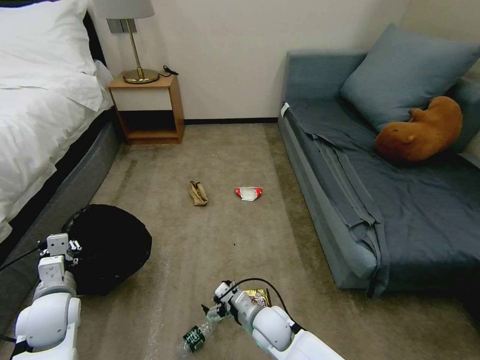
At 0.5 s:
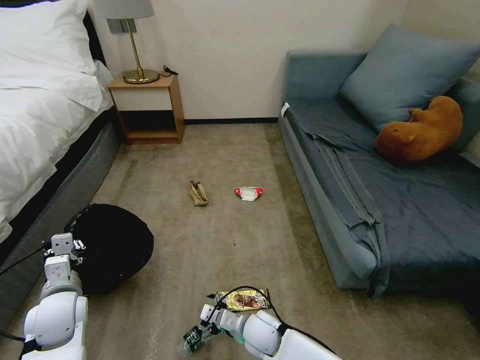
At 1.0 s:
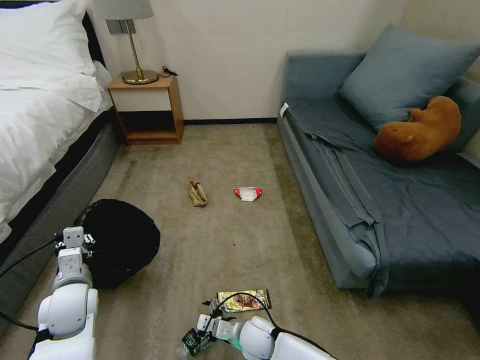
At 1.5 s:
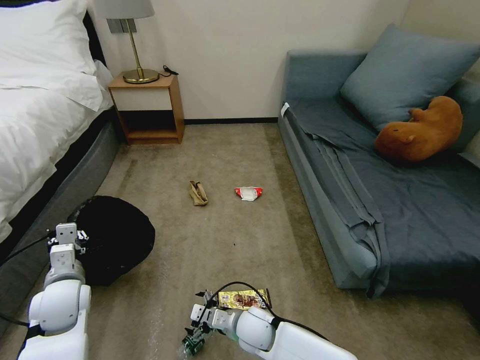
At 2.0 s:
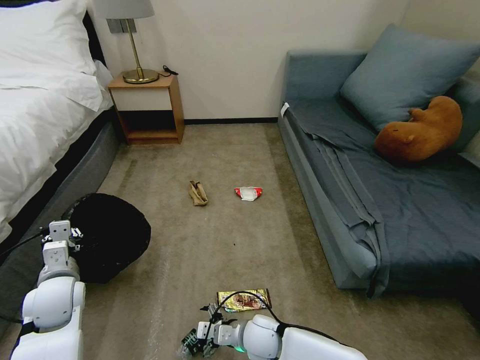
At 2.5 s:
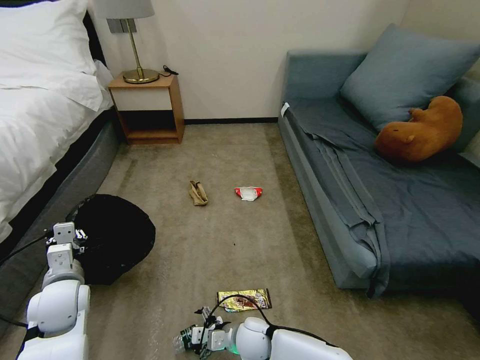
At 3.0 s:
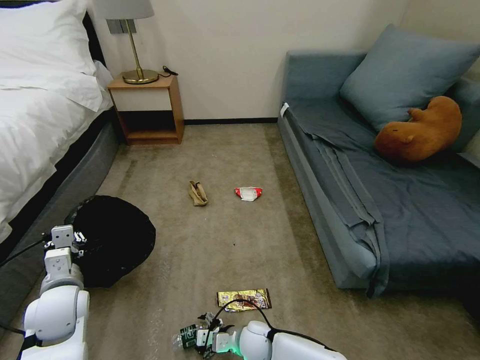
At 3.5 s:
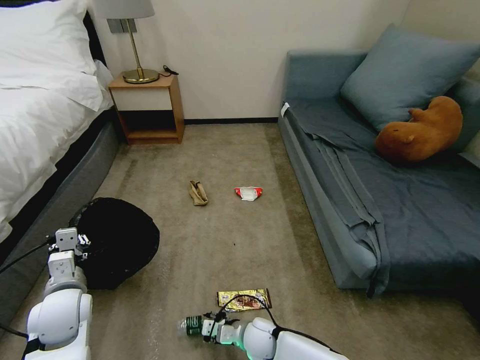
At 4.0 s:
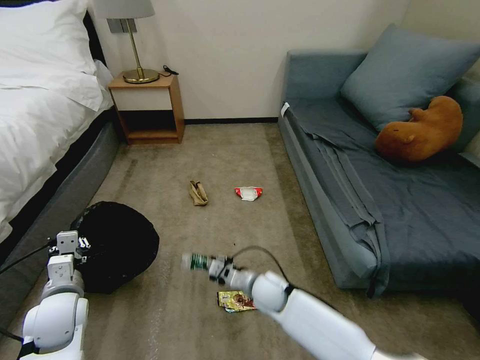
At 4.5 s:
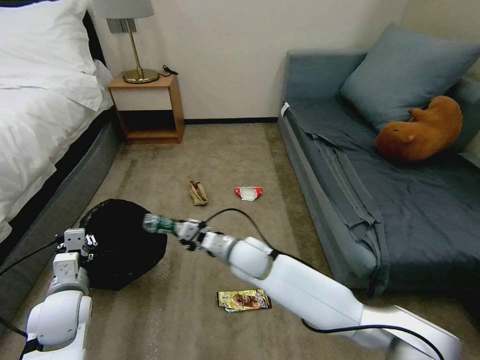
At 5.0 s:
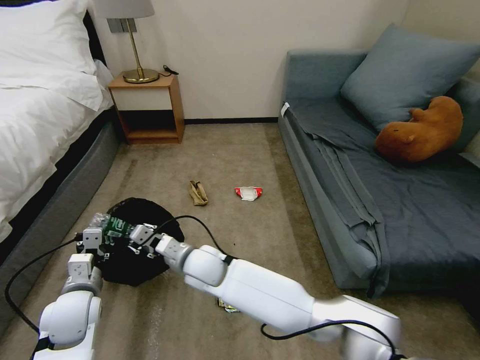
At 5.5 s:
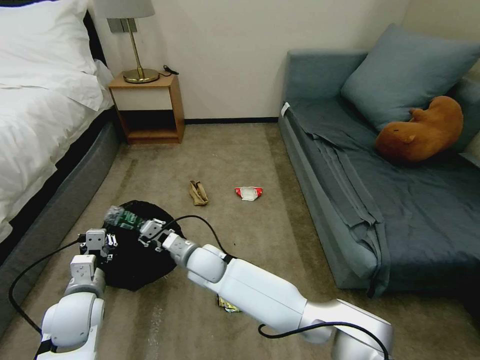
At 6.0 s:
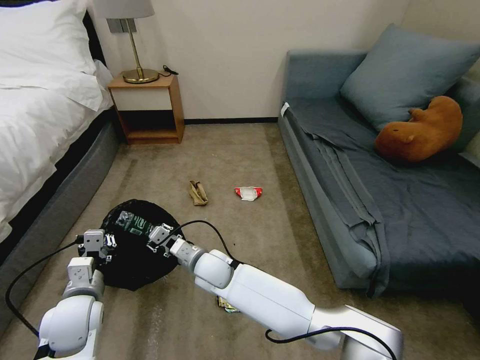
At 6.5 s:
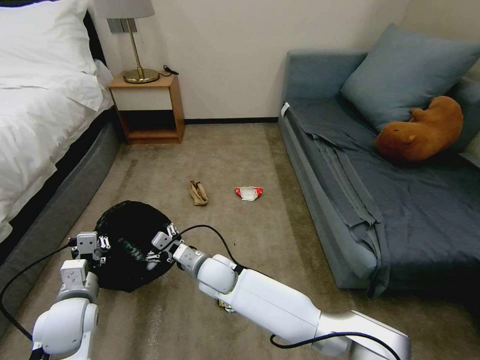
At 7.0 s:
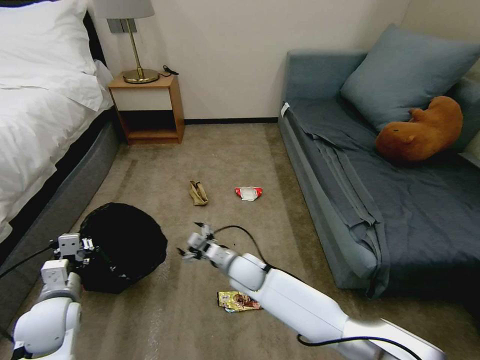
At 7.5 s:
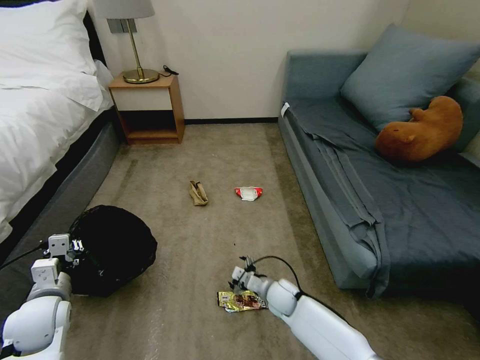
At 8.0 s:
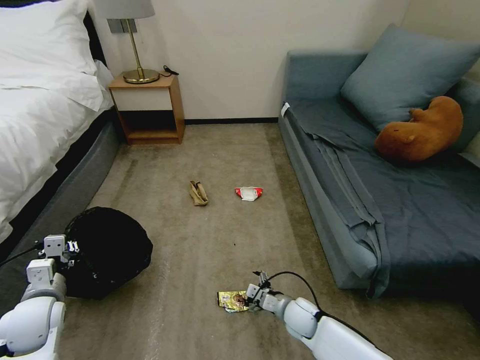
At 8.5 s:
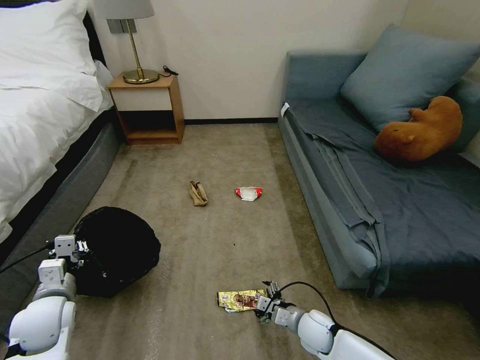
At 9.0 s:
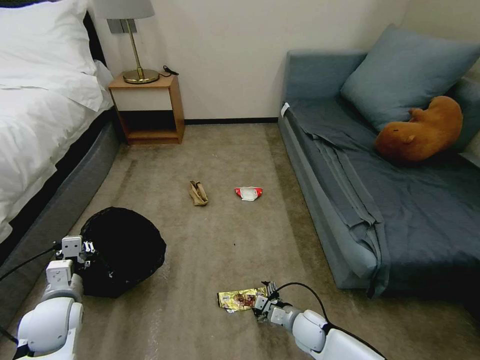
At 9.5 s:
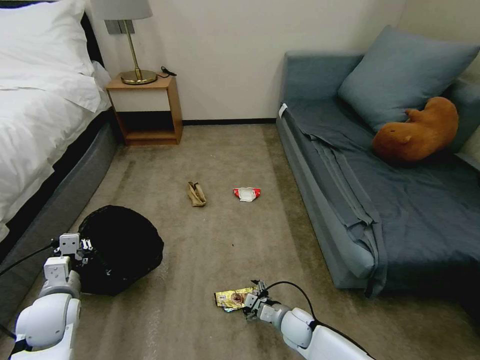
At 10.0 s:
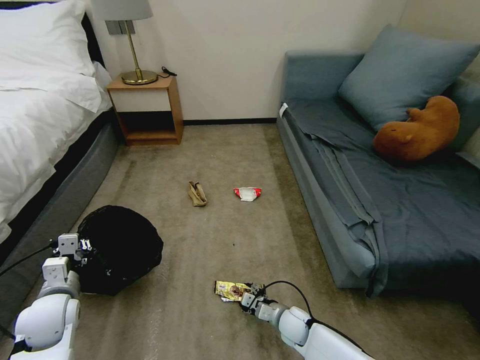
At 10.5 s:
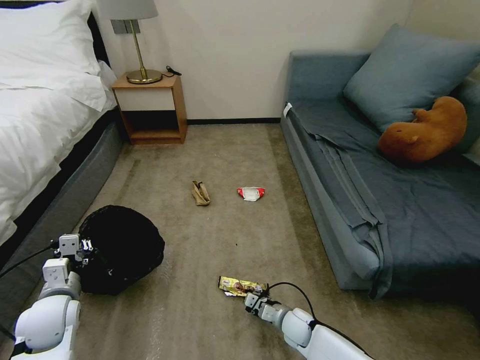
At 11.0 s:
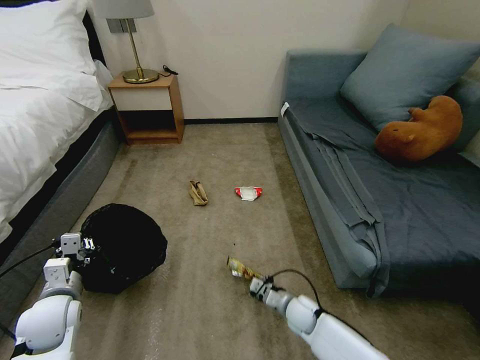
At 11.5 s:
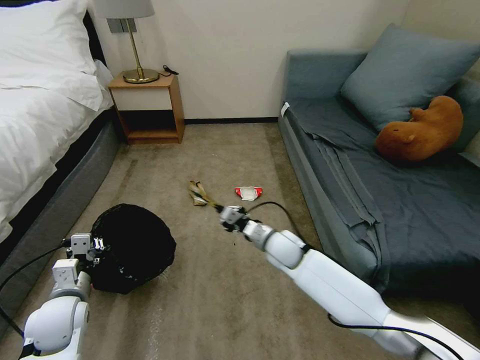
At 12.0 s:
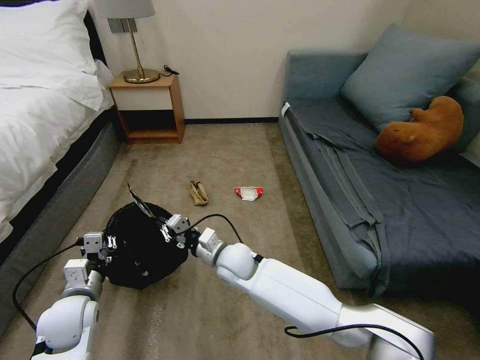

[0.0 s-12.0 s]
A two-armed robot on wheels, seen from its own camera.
Task of the whole recording: Pick up the trash bin, then pick up the garbage on the floor and place it into the trash bin.
2.0 to 4.0 s: The right gripper travels forward by approximately 10 cm, and closes up.
4.0 to 6.0 s: The right gripper moves to the left and upward, some 15 cm.
6.0 to 8.0 s: The right gripper travels to the right and downward by some 30 cm, and opens its fingers; the left gripper shifts some 10 cm to the left.
8.0 to 10.0 s: The grippers move only a little.
10.0 to 12.0 s: The right gripper travels upward, to the left and forward by about 30 cm, and closes up.

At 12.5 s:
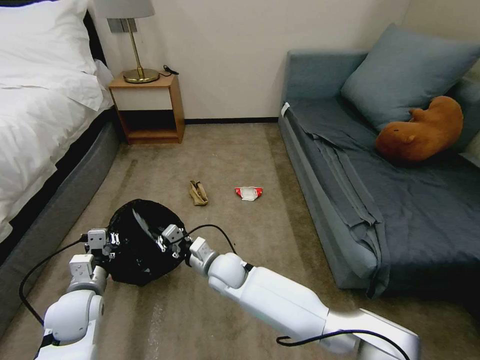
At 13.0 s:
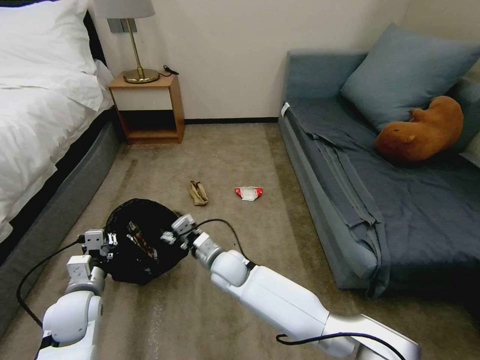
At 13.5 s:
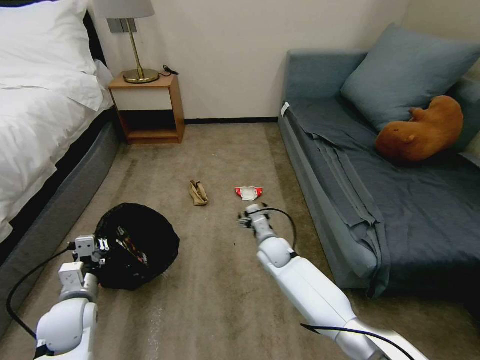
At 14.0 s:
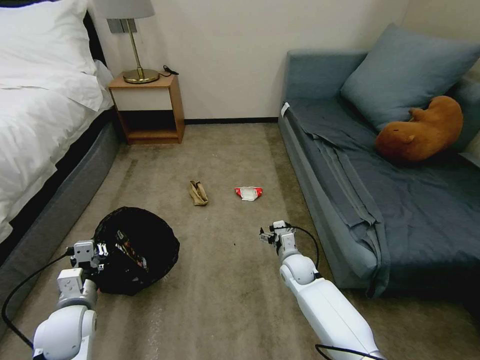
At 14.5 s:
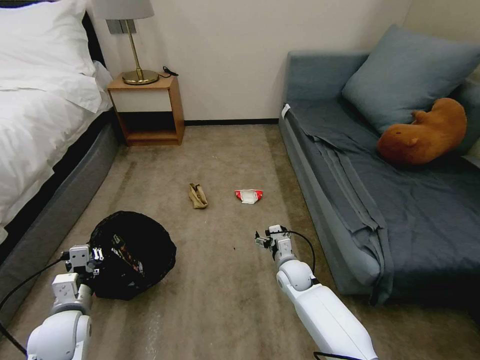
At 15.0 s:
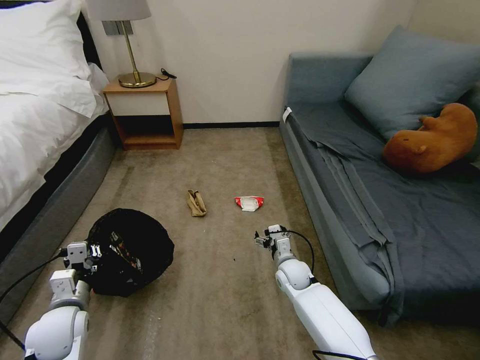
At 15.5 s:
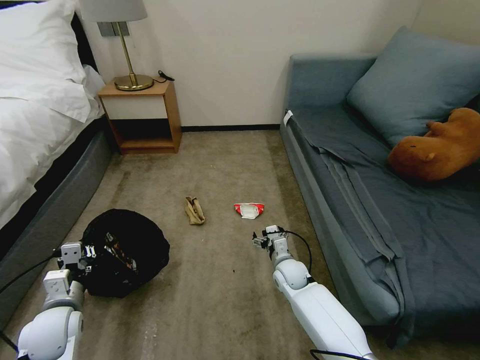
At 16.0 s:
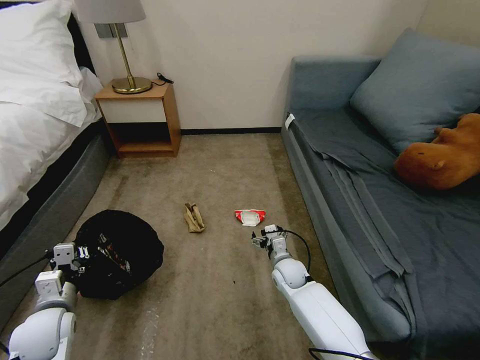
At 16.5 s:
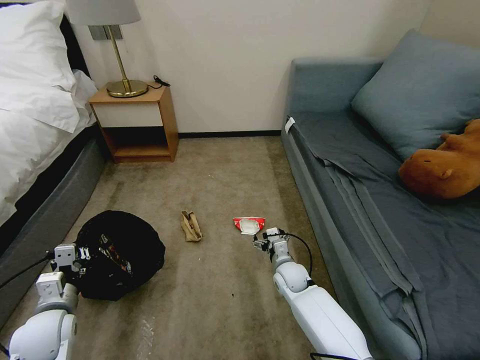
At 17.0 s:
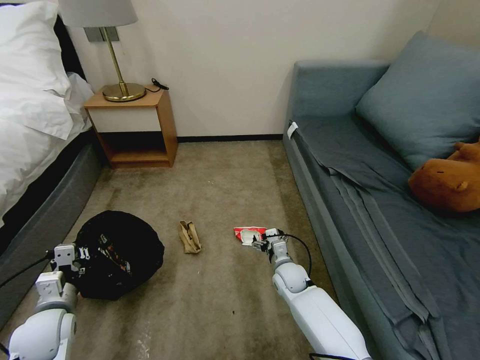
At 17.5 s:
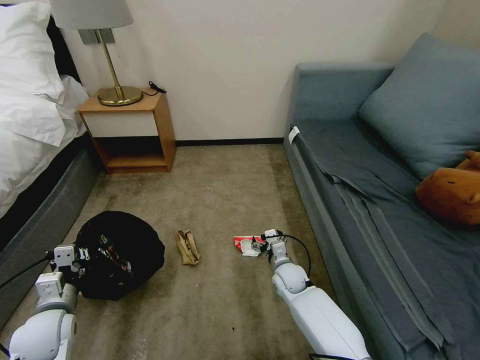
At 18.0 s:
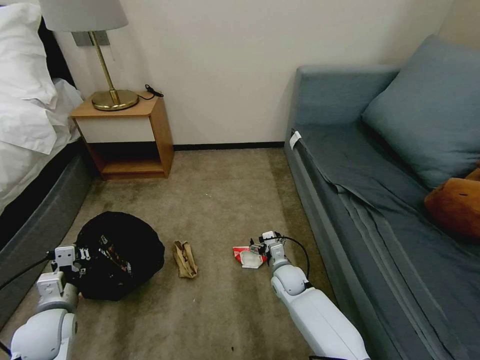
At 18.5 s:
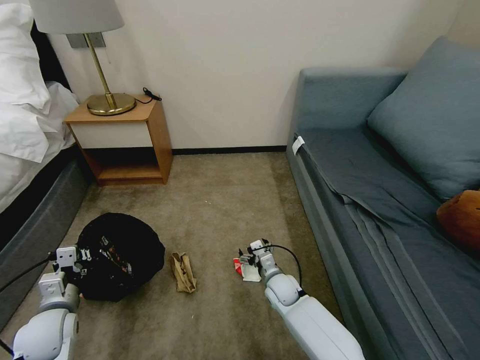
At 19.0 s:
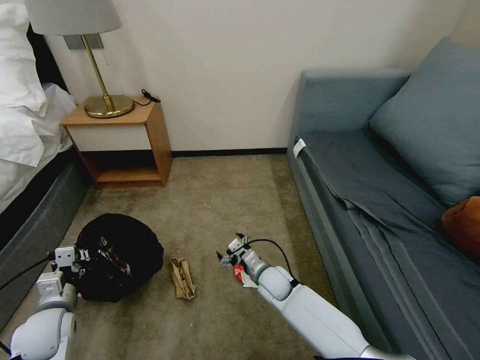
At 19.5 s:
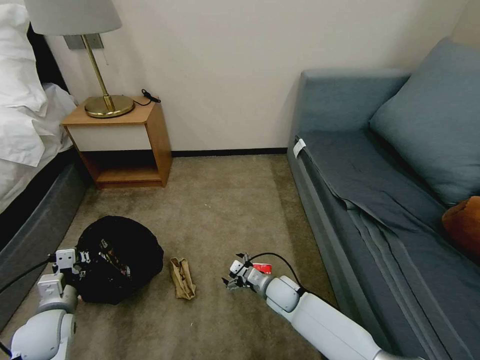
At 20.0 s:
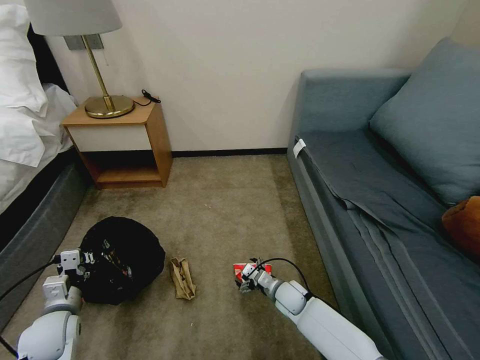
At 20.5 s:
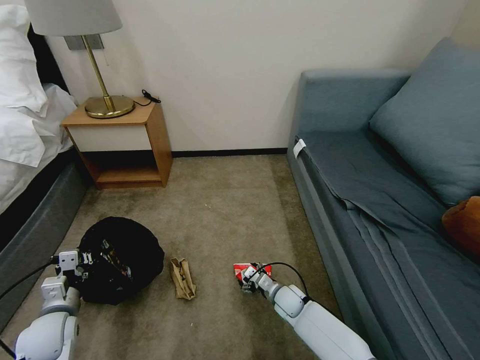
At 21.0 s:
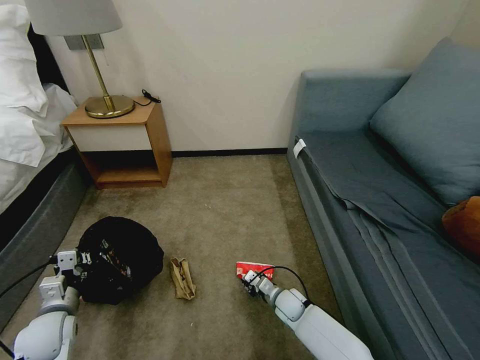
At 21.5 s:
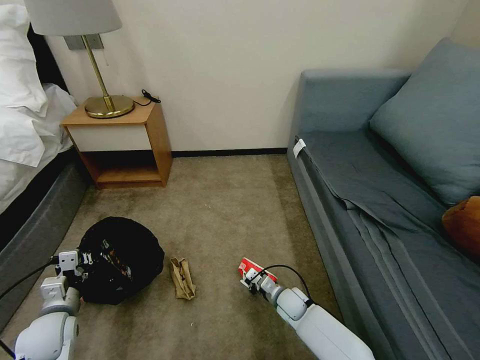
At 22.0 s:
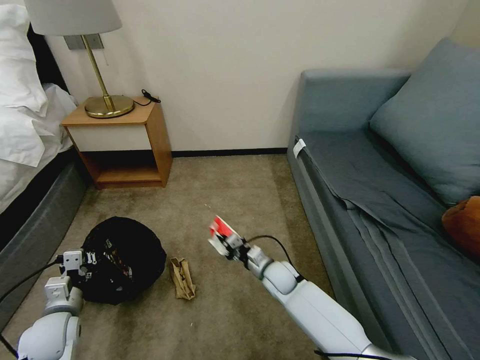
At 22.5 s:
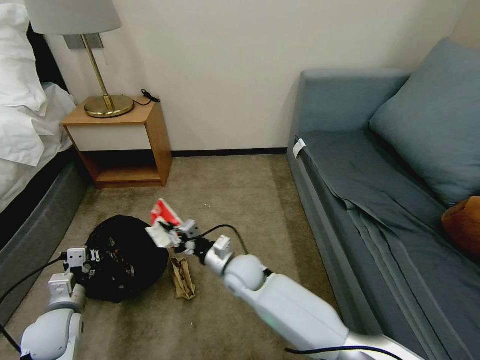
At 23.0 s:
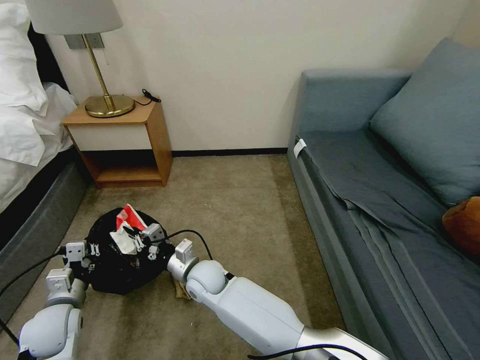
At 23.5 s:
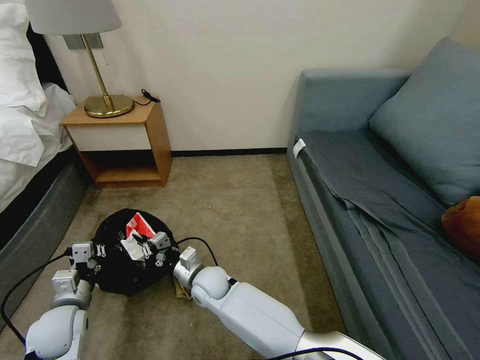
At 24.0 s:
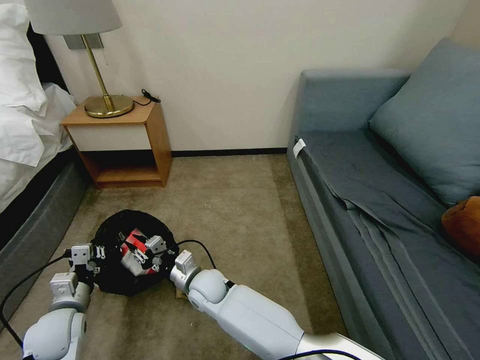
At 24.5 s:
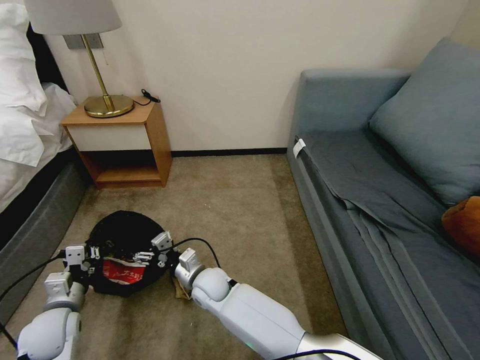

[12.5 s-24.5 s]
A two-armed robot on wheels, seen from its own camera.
Task of the whole recording: Pick up the trash bin, then pick up the garbage on the floor and place it into the trash bin.
12.5 to 14.5 s: The right gripper moves to the right, approximately 20 cm, and opens.
18.5 to 20.5 s: The right gripper moves downward, approximately 5 cm.
20.5 to 22.5 s: The right gripper is displaced upward and to the left by roughly 25 cm, and closes up.
22.5 to 24.5 s: The right gripper is displaced to the left by approximately 10 cm, and opens its fingers.

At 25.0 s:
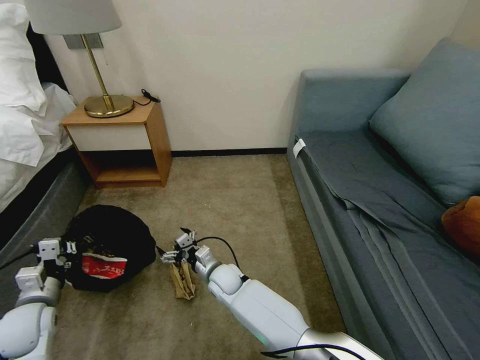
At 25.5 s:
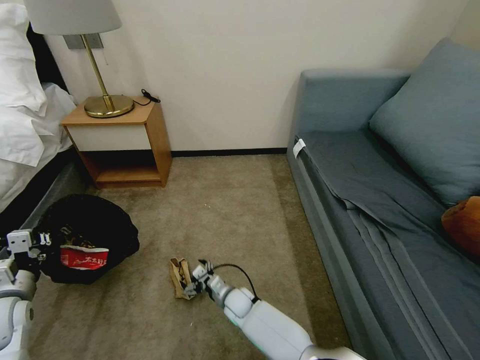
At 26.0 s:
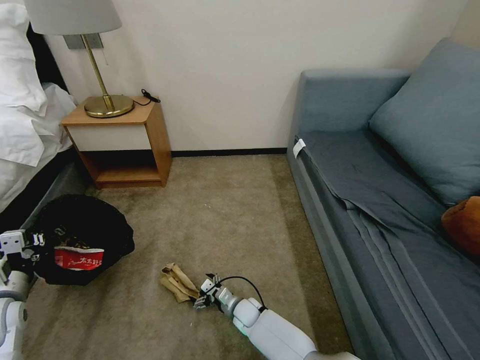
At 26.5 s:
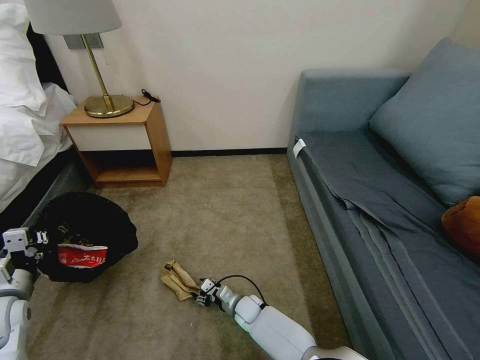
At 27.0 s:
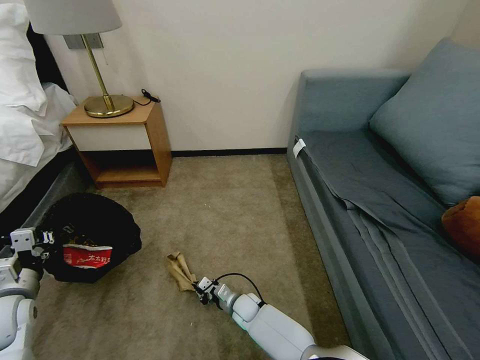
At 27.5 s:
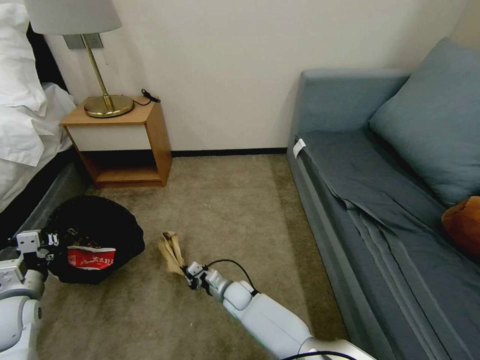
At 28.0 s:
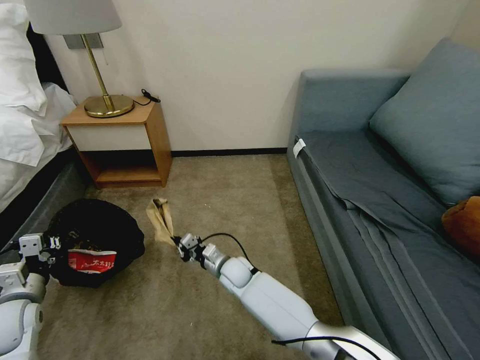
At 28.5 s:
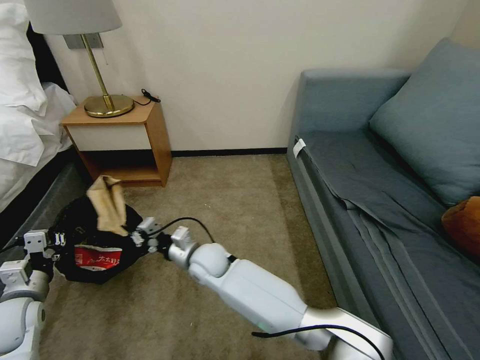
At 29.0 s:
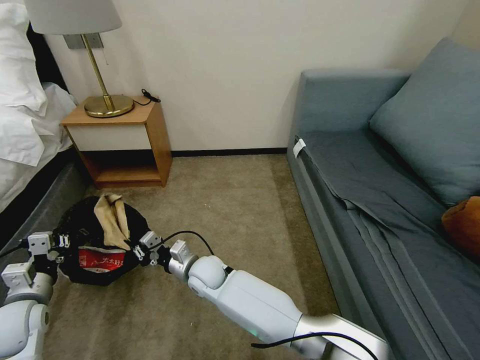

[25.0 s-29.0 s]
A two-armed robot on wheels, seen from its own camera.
Task of the whole recording: Pick up the trash bin, then pick up the garbage on the floor and place it into the trash bin.
25.0 to 27.0 s: The right gripper goes about 15 cm downward and to the right, and closes.
27.0 to 29.0 s: The right gripper is displaced upward and to the left by about 25 cm.
